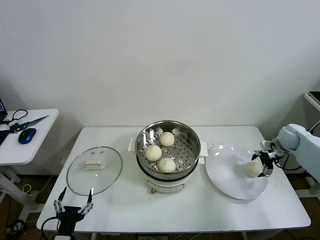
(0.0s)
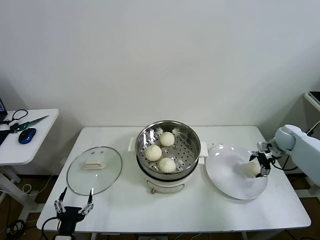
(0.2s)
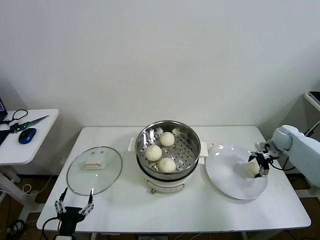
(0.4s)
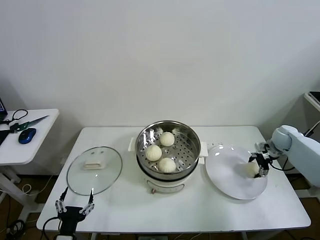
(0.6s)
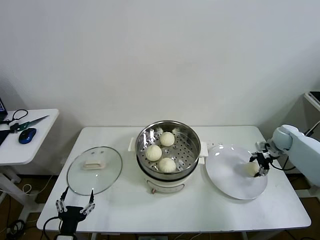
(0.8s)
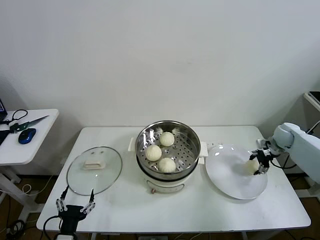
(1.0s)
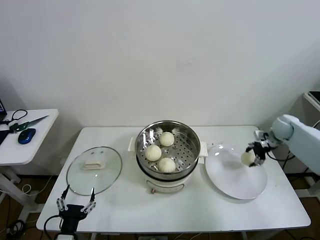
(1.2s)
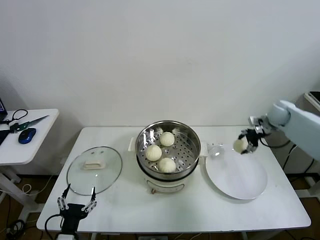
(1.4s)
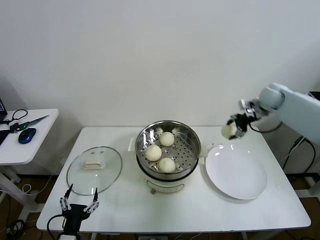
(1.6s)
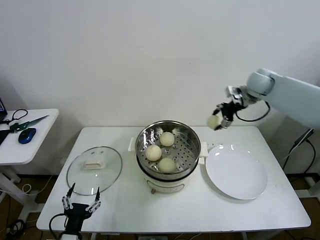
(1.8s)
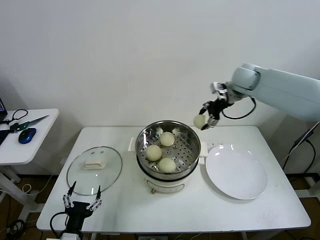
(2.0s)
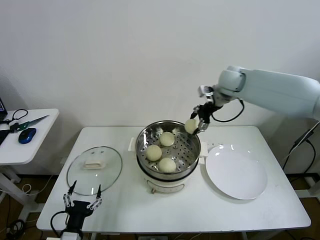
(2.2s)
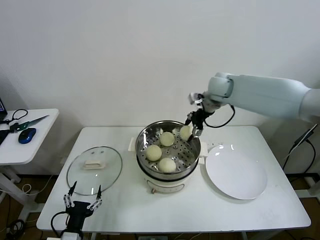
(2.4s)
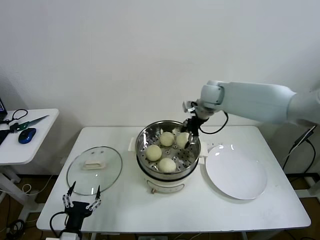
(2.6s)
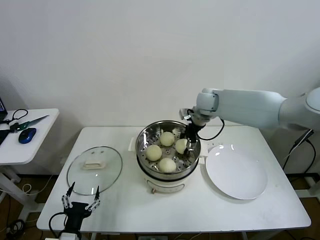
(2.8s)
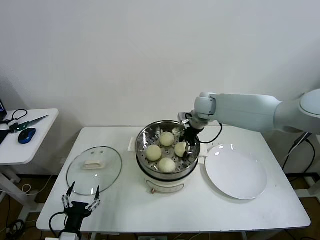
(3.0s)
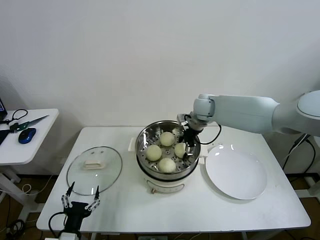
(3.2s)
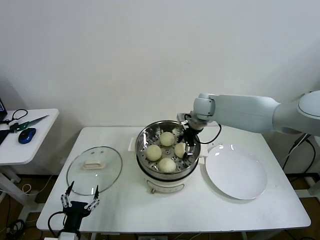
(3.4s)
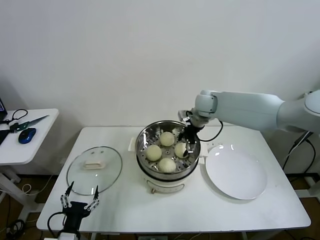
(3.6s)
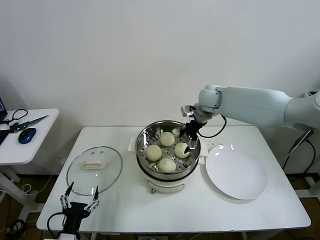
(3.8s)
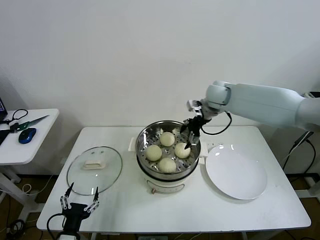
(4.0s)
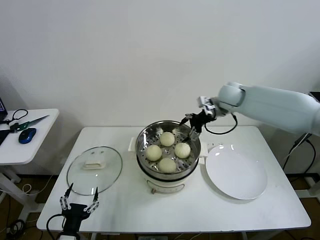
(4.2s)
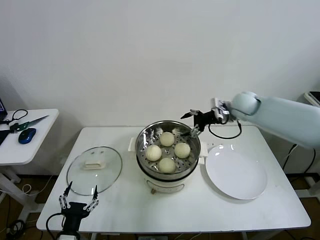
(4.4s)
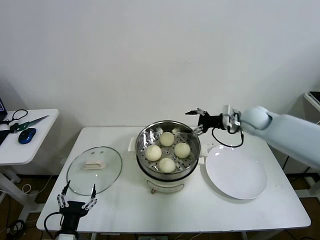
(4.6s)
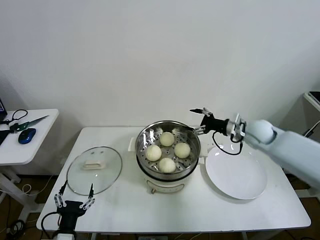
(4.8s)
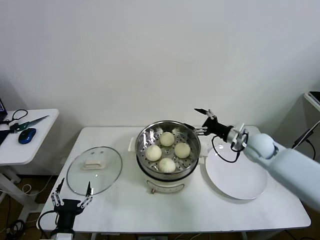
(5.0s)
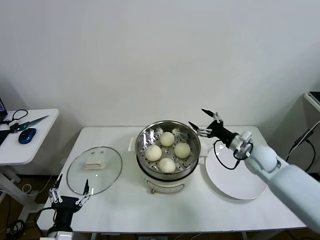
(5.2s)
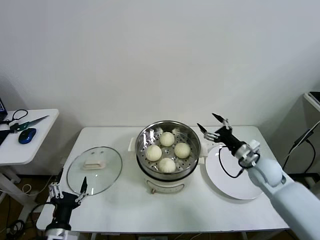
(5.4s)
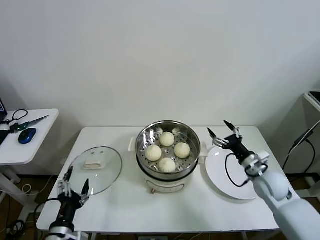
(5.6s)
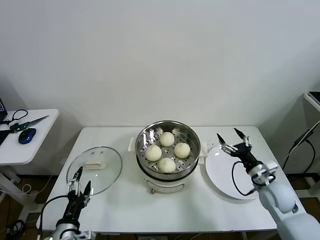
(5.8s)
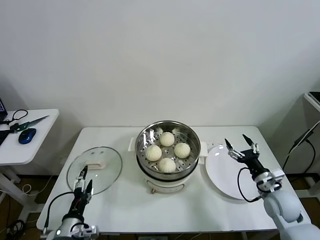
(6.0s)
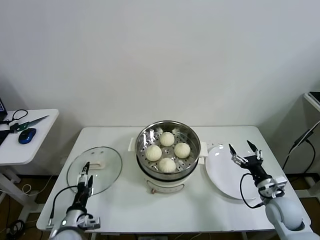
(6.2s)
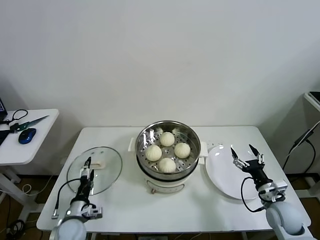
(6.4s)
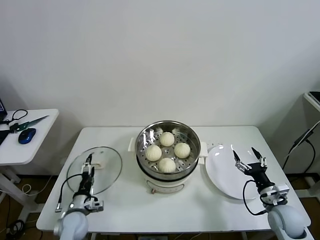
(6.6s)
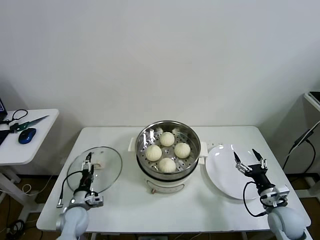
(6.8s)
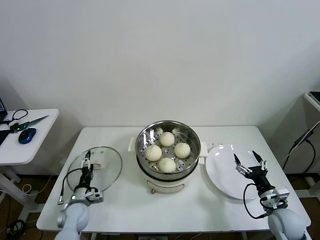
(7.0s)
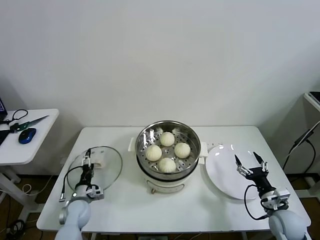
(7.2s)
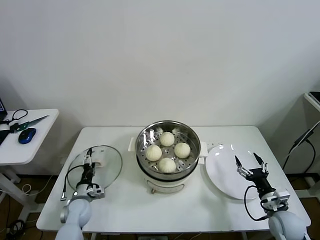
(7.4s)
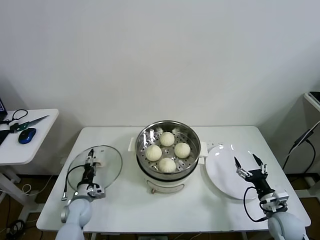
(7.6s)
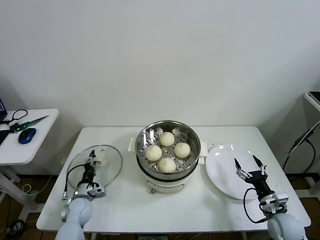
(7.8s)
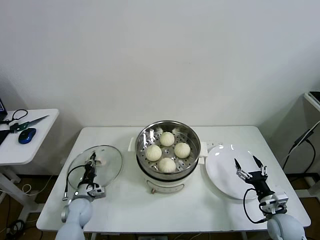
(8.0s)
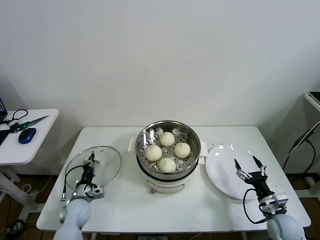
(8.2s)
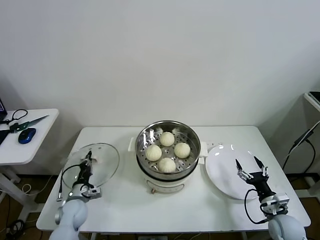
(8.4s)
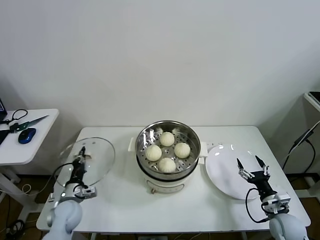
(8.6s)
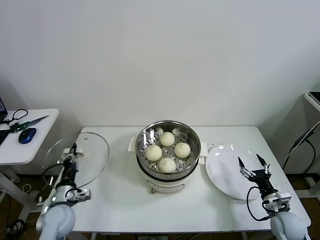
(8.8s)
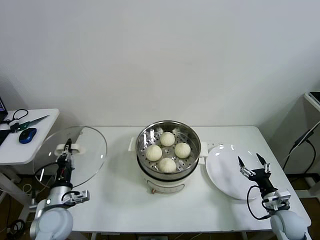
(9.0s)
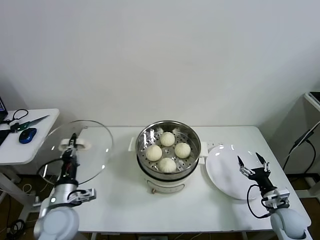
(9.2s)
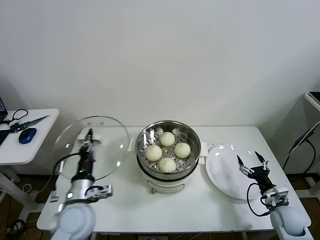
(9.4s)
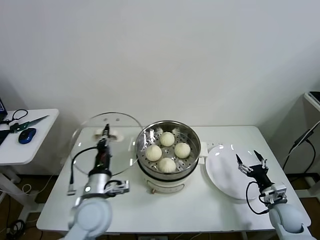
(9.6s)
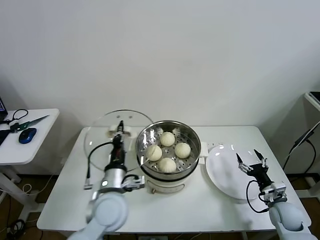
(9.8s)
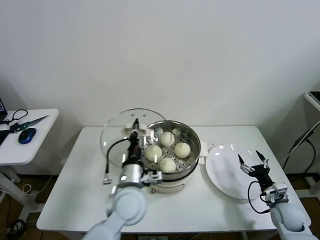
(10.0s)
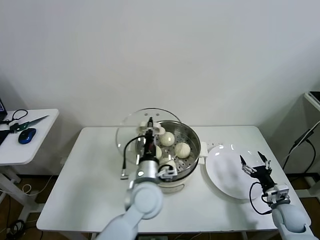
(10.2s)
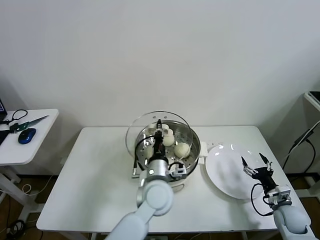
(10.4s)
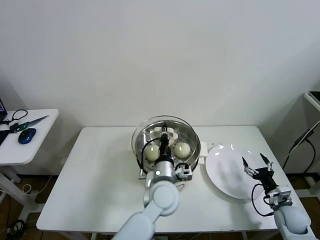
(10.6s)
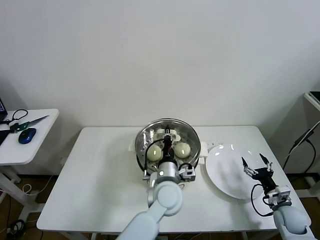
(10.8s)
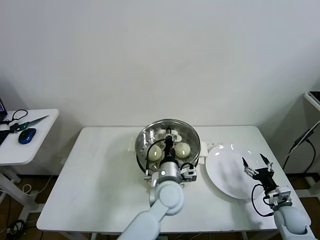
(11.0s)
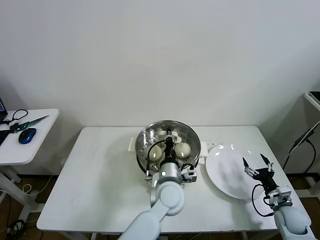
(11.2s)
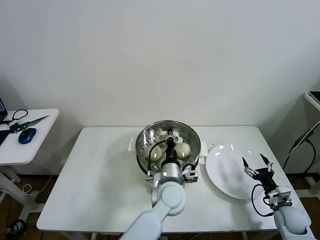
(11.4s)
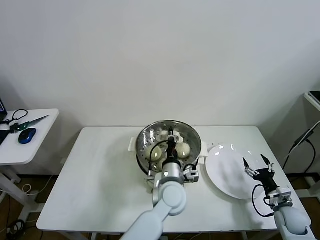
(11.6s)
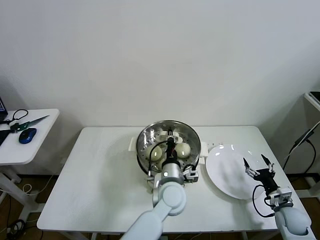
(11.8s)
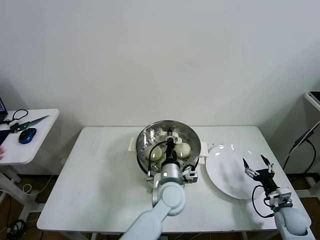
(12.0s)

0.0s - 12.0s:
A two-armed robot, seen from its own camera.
Task of the whole recording: take steamed baozi put them in steamer then cover it.
Step, 0.8s - 3.8s: Place the baozi on the steamer with right gripper.
Step, 4.0s - 8.0s: Grasp the pot lid with left gripper.
0.0s - 1.6s: The right gripper heads upward, to the left and forward, covering some 20 cm, and closes its fingers.
1.6s - 3.0s: The right gripper is displaced to the left by about 25 cm.
3.0s - 4.4s: The right gripper travels to the right by some 10 cm, and opens.
4.4s - 6.0s: The right gripper moves backward and downward, roughly 35 cm.
6.0s - 7.6s: The right gripper shifts approximately 10 cm downward and backward, while the left gripper shifts about 20 cm forward and downward.
7.6s - 9.0s: The left gripper shifts some 15 cm upward and backward, and closes up.
9.0s - 10.4s: The left gripper shifts approximately 30 cm to the right.
10.4s - 12.0s: The left gripper moves to the right, some 5 cm.

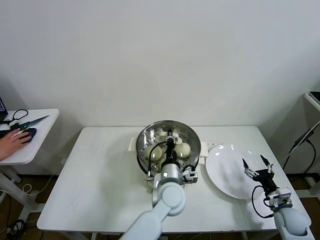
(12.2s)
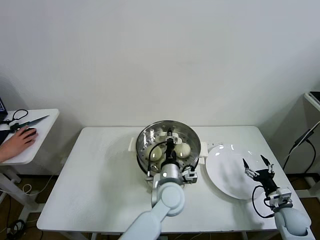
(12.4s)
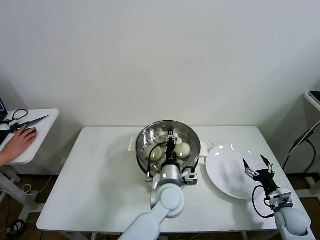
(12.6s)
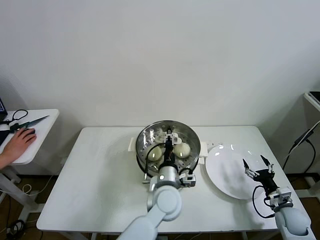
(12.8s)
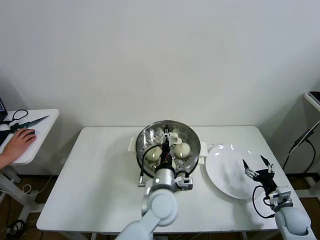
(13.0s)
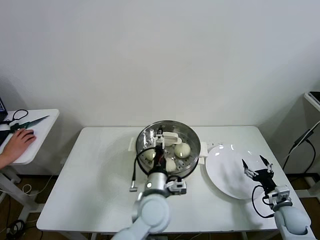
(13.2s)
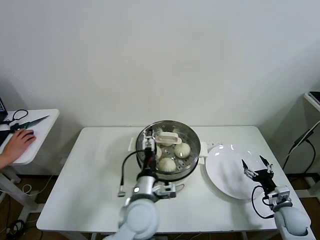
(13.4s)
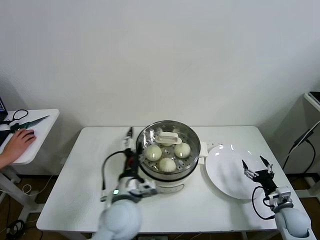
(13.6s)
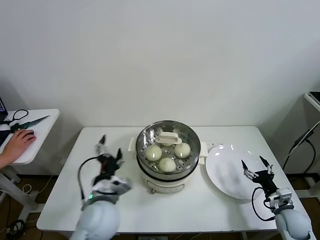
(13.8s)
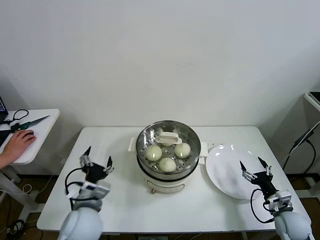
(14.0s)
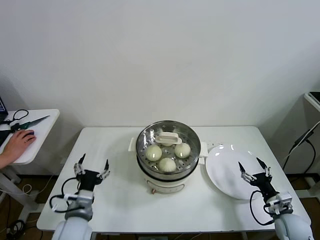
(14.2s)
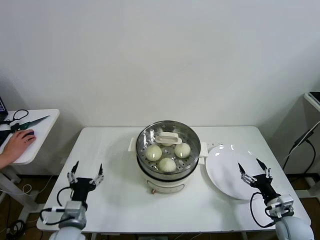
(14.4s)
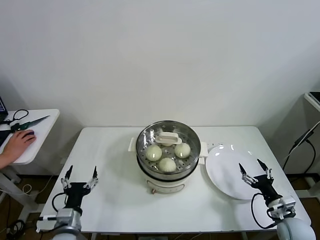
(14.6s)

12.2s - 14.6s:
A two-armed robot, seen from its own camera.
Task of the whole recording: take steamed baozi put them in steamer then cover it.
12.2s - 13.4s: The left gripper moves to the left and backward, roughly 10 cm, and opens up.
13.4s - 14.6s: The left gripper is displaced to the left by about 25 cm.
